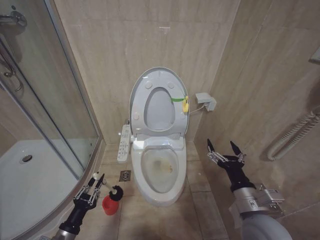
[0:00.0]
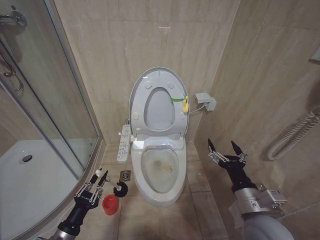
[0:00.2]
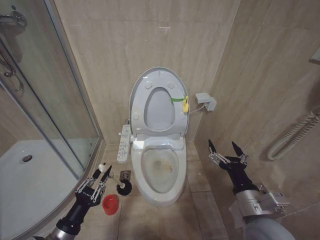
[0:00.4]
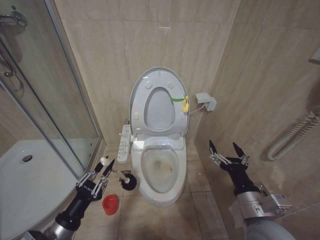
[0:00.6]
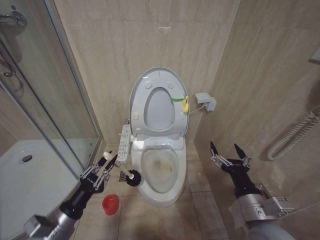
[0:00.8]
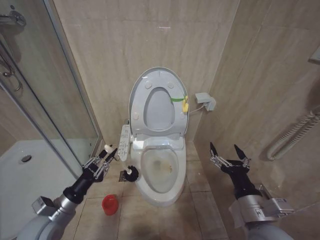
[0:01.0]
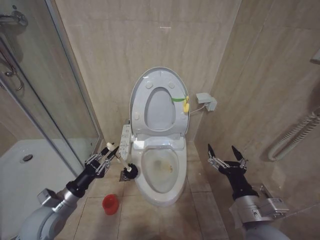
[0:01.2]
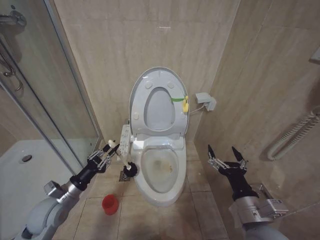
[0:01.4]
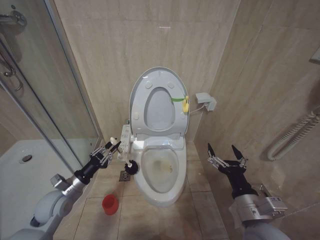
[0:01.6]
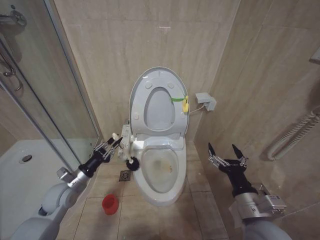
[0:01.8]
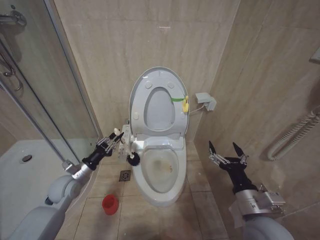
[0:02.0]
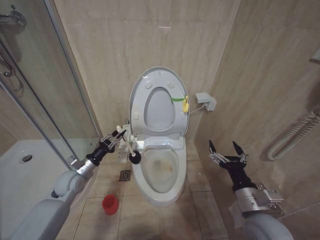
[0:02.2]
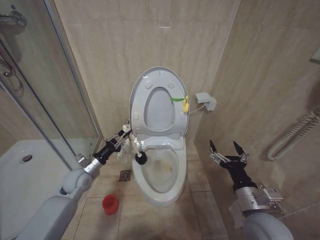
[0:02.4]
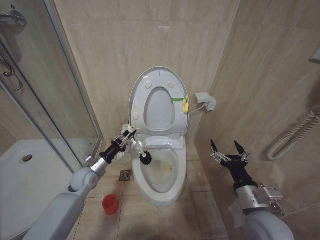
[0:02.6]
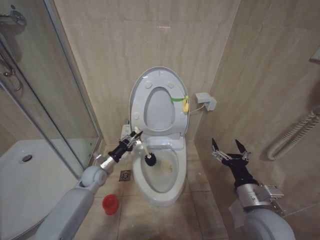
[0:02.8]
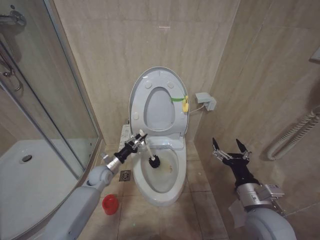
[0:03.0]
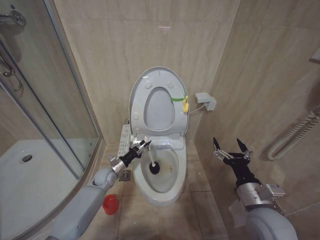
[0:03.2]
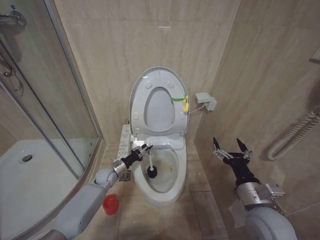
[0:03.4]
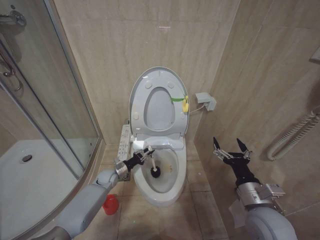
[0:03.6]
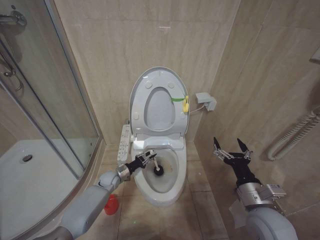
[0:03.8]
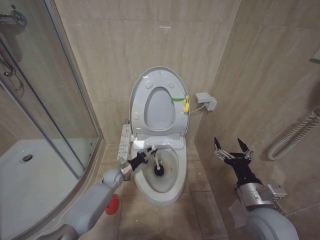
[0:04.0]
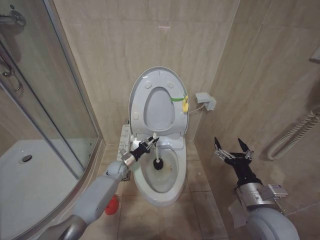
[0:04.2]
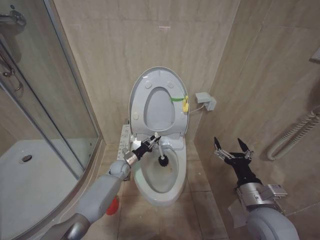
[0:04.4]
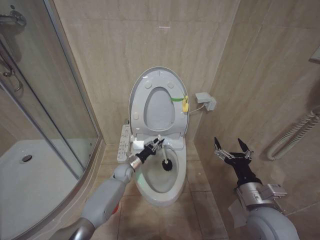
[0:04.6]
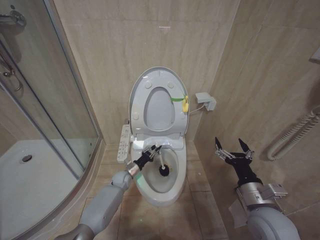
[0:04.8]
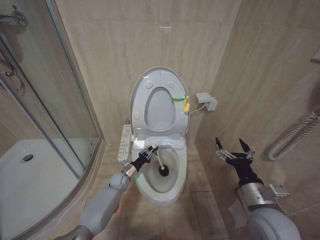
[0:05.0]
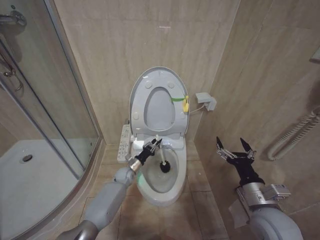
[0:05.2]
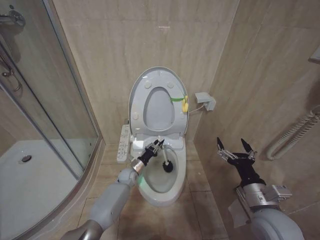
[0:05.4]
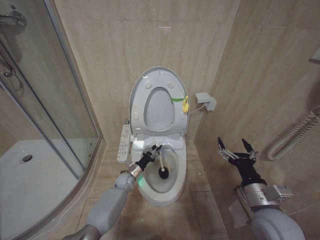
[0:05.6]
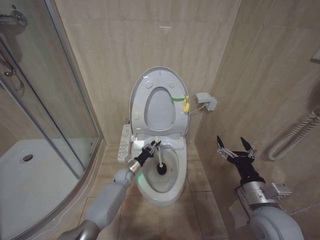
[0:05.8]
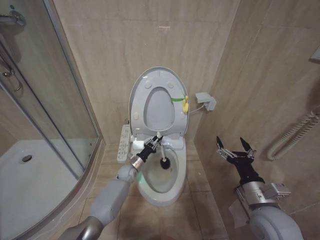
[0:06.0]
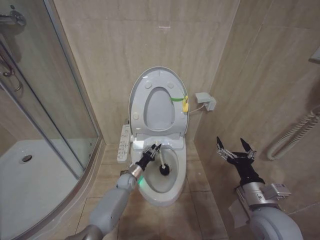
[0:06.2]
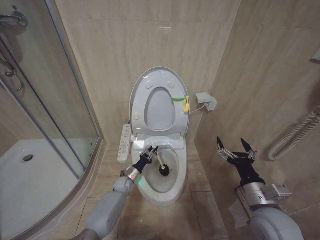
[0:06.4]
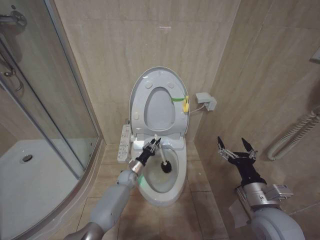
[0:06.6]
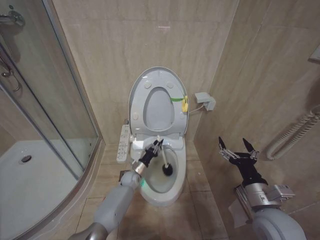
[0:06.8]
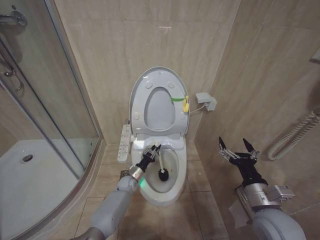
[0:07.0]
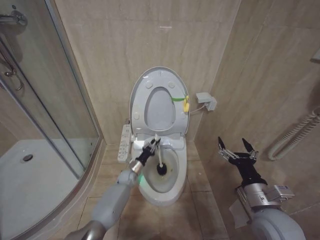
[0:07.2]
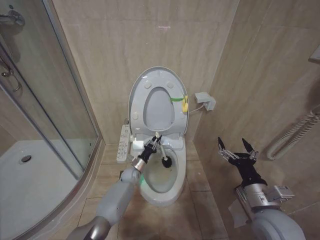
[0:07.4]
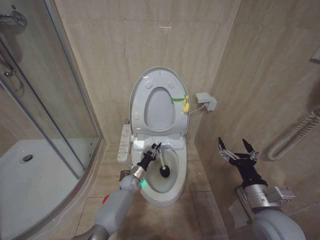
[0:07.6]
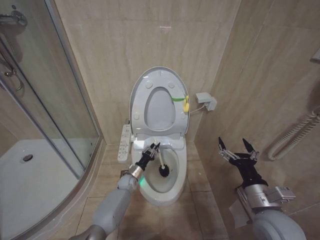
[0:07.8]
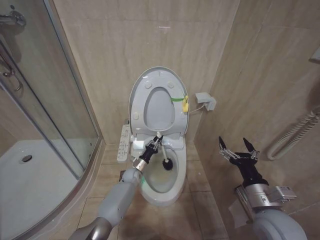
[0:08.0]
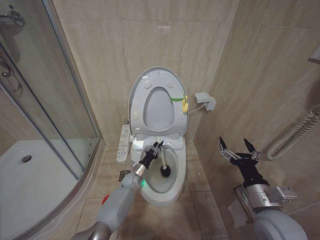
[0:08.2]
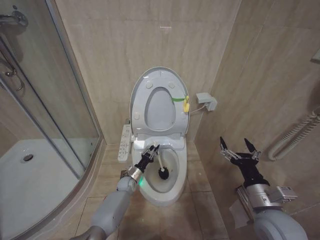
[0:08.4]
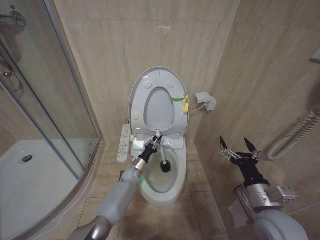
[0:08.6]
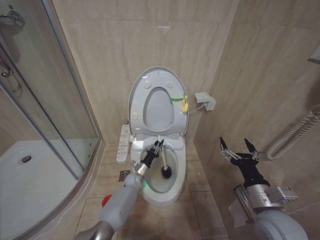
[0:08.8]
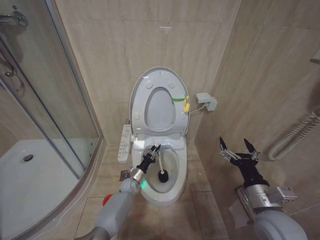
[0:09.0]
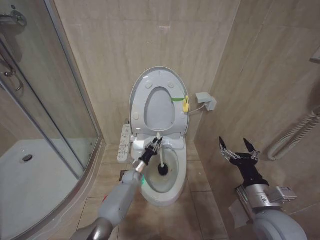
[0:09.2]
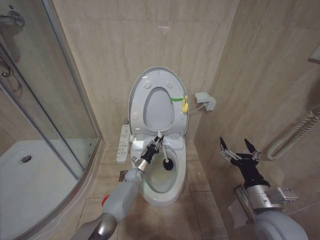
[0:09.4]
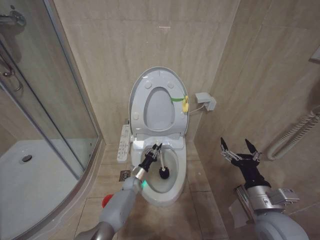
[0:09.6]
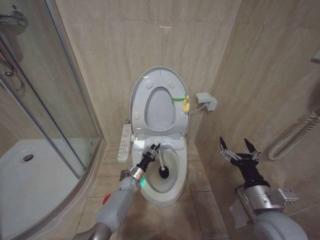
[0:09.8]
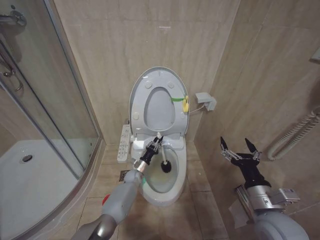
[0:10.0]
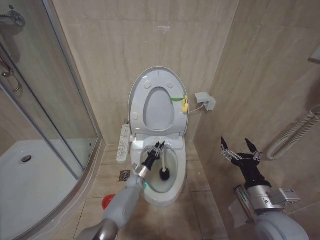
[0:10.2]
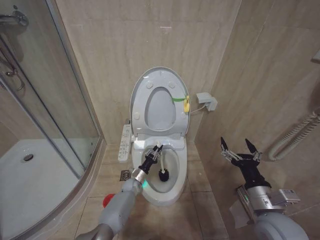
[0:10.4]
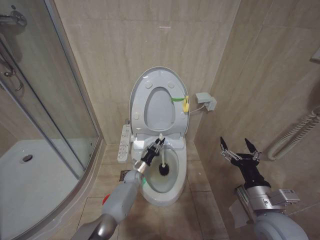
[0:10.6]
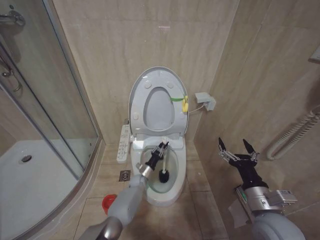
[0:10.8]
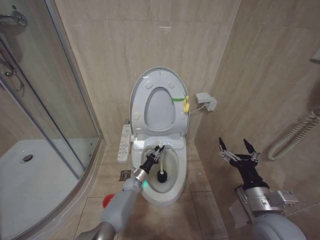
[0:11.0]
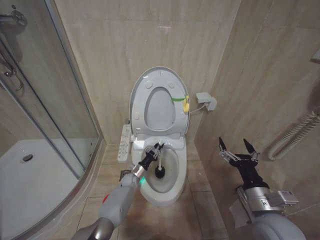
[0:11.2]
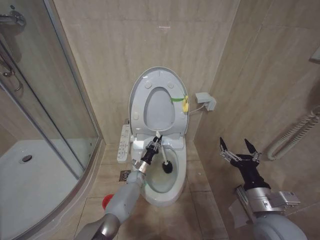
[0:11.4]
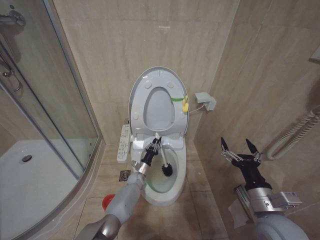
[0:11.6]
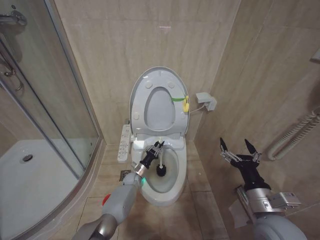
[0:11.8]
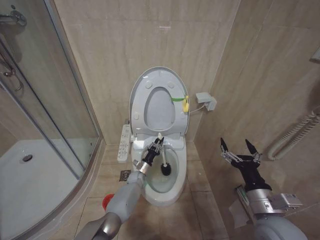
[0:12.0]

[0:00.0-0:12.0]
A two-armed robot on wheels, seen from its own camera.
Task of the whole recording: Open the toilet lid, clean the toilet bowl with a toilet brush, close the toilet lid, and flush.
0:00.0 to 0:01.6: The left gripper is displaced forward and upward by some 15 cm.
0:01.6 to 0:03.0: The left gripper heads forward and to the right, covering some 20 cm.
0:03.0 to 0:04.4: The left gripper moves to the right and forward, roughly 10 cm.
0:07.6 to 0:12.0: The grippers stay close to where they were, moving slightly.

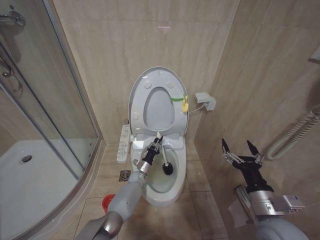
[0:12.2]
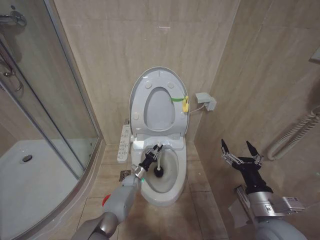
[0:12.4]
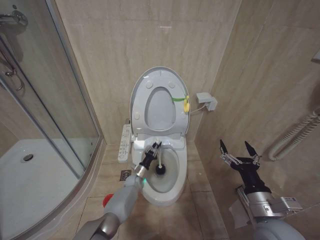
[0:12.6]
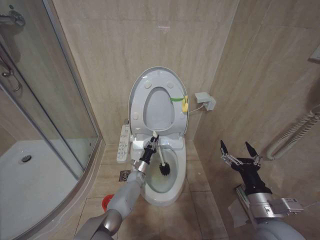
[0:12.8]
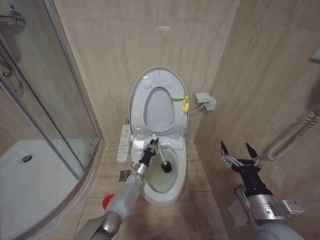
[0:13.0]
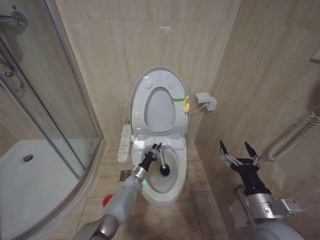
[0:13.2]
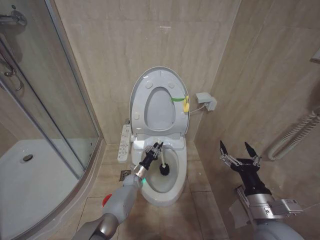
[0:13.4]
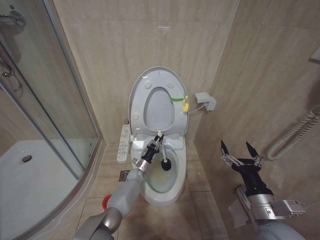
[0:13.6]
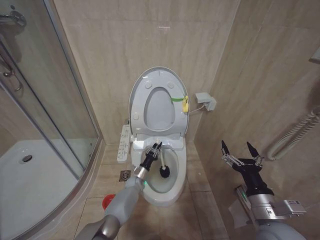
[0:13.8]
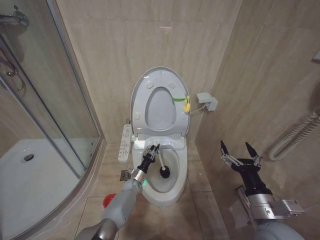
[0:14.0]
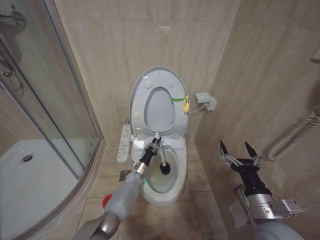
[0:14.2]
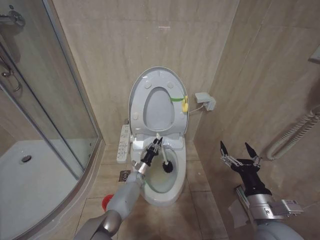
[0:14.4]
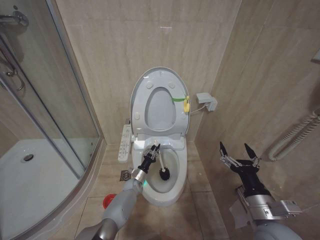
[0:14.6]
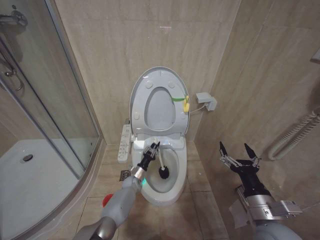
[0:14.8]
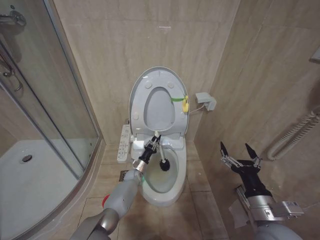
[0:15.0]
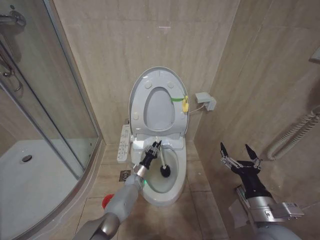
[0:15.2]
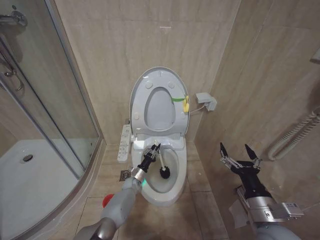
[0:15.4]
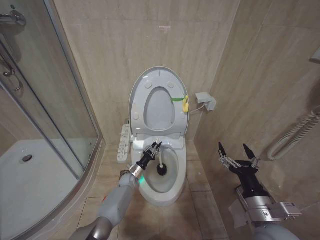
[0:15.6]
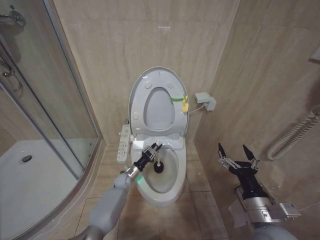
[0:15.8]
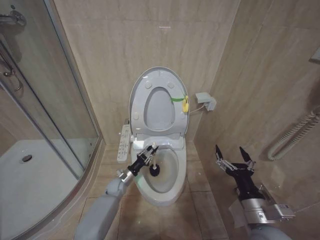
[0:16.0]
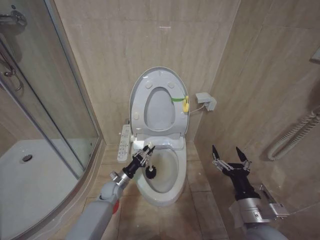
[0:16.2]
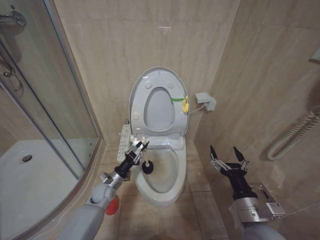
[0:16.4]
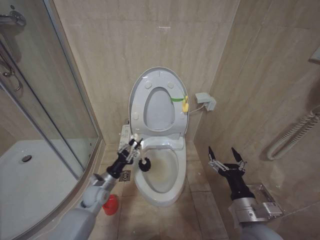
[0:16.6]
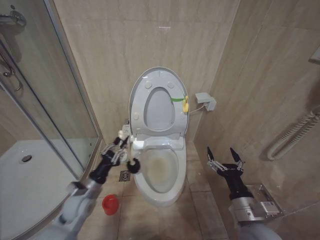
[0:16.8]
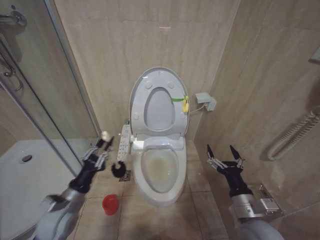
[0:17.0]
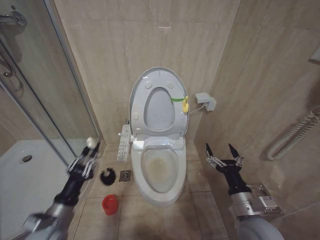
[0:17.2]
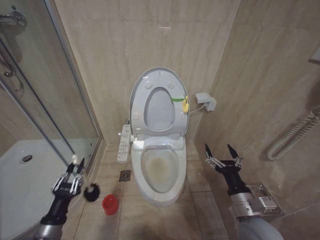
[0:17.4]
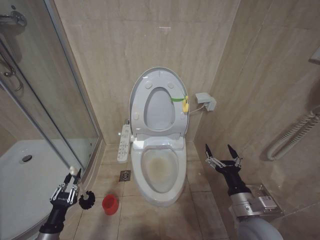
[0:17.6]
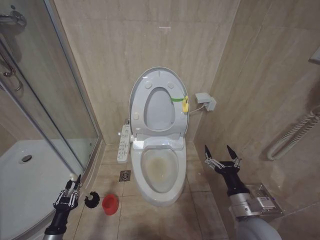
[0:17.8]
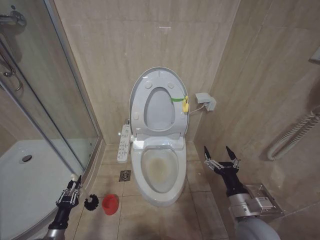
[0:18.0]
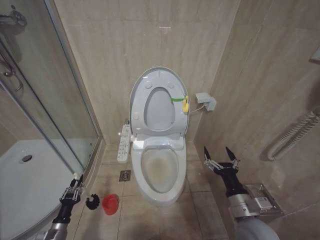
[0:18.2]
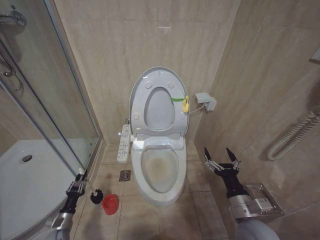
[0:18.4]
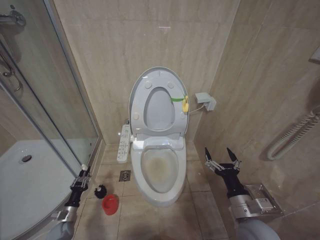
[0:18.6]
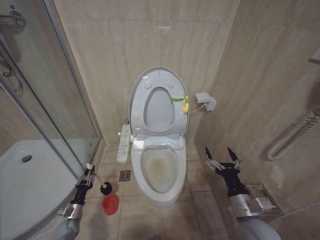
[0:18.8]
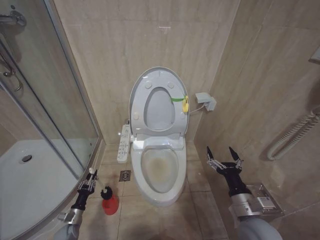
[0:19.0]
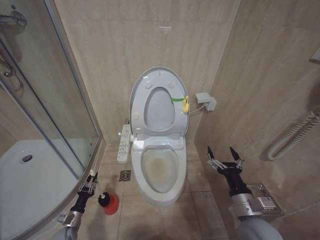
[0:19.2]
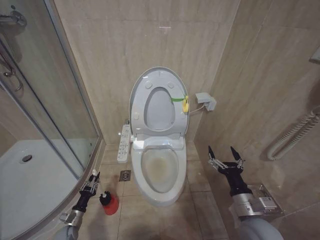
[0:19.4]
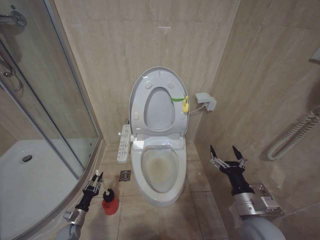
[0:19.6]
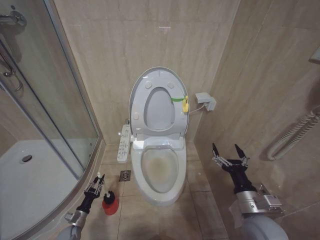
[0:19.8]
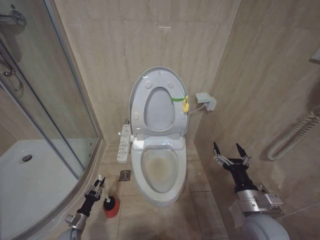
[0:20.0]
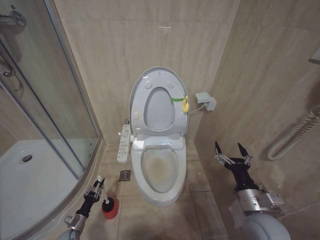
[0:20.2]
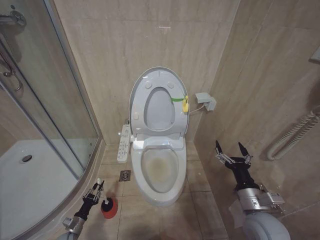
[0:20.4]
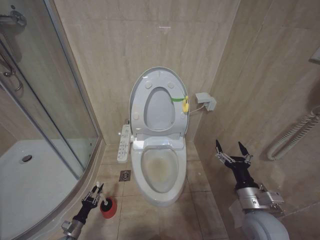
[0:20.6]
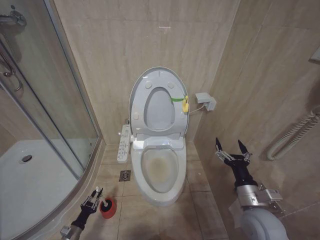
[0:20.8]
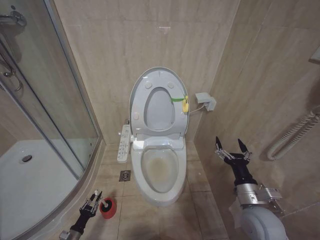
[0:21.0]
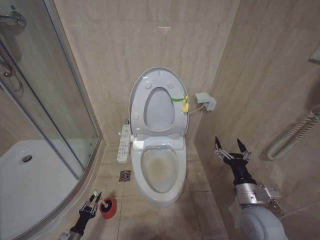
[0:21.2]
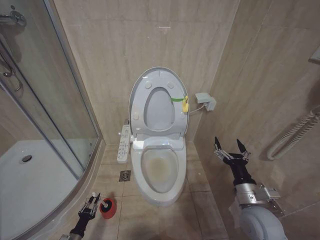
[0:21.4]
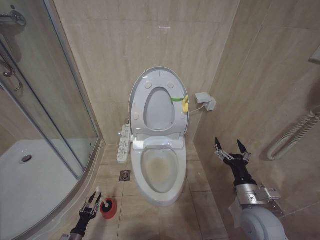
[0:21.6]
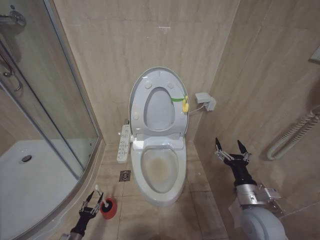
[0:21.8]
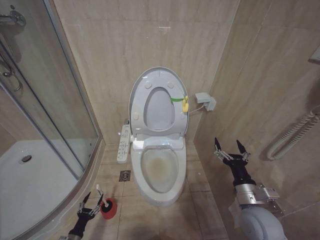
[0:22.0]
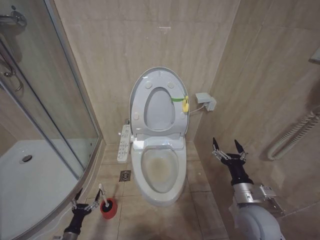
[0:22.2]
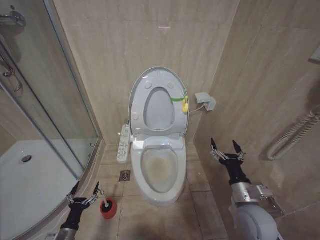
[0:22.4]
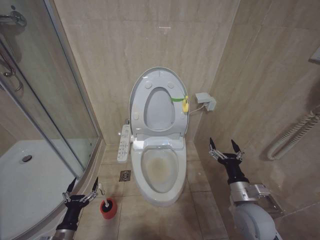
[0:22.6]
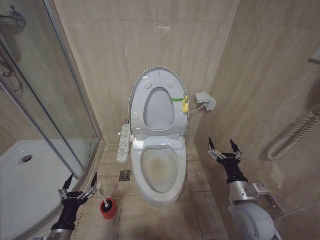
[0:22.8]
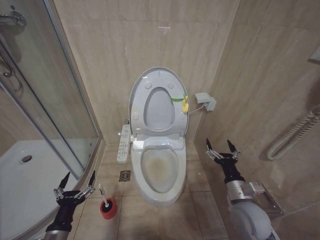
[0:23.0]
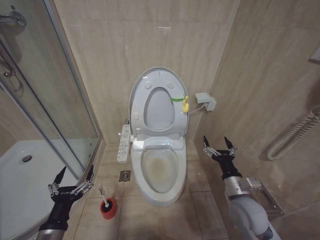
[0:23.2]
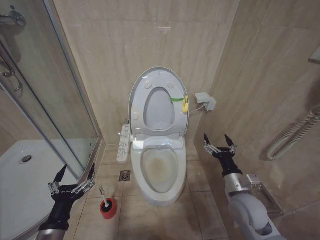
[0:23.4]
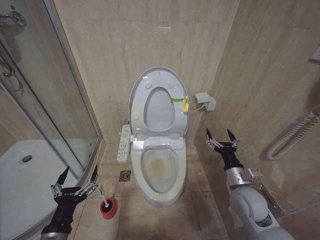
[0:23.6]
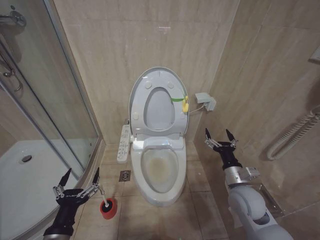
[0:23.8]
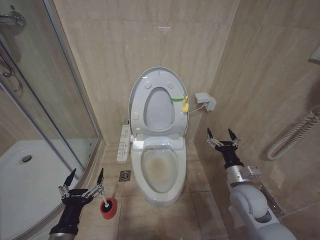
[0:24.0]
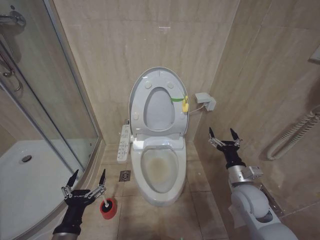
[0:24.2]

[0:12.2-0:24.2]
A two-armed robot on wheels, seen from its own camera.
Task of the whole recording: Open the toilet lid, clean the toilet bowl with a toilet brush, close the toilet lid, and flush.
0:12.2 to 0:15.2: The grippers move only a little.
0:15.2 to 0:16.6: The left gripper shifts some 20 cm to the left, upward and backward.
0:16.6 to 0:18.2: The left gripper is displaced to the left, backward and downward by about 30 cm.
0:18.2 to 0:19.8: The left gripper moves forward and downward, some 10 cm.
0:19.8 to 0:21.2: The left gripper moves backward, roughly 10 cm.
0:21.2 to 0:22.6: The left gripper shifts some 20 cm upward and to the right, and opens up.
0:22.6 to 0:24.2: The right gripper is displaced forward by approximately 5 cm; the left gripper shifts roughly 20 cm upward and to the right.
